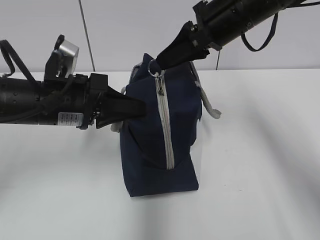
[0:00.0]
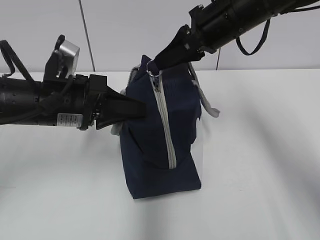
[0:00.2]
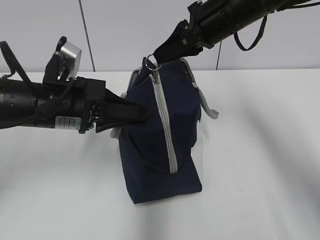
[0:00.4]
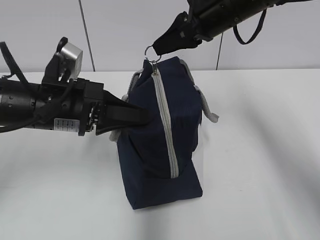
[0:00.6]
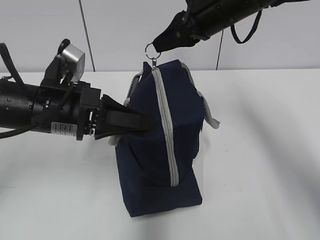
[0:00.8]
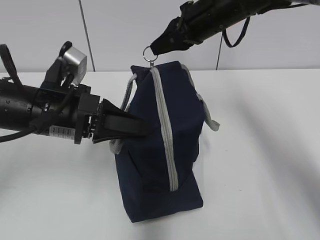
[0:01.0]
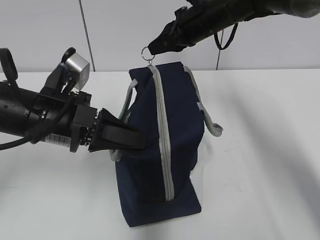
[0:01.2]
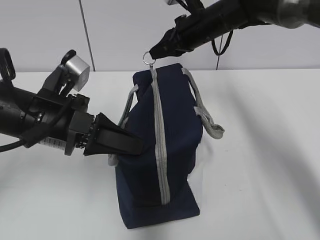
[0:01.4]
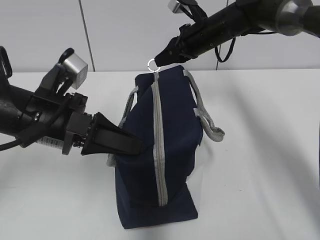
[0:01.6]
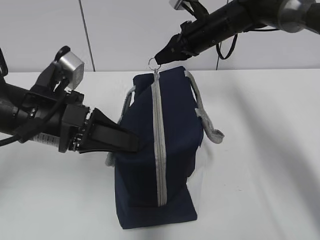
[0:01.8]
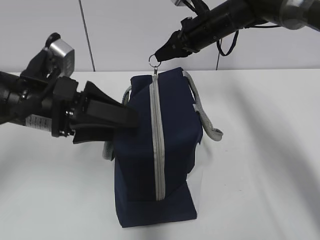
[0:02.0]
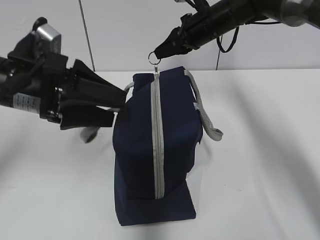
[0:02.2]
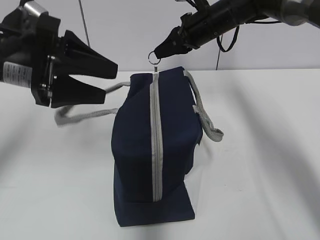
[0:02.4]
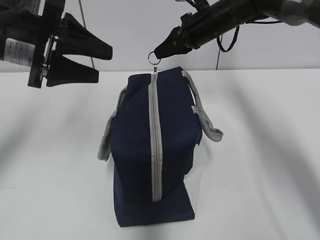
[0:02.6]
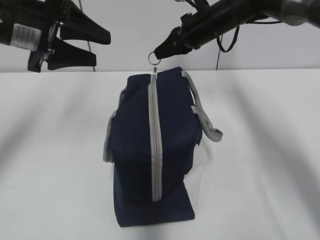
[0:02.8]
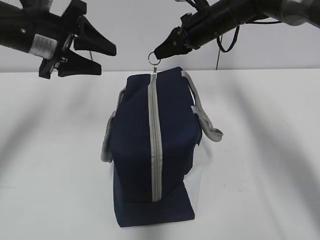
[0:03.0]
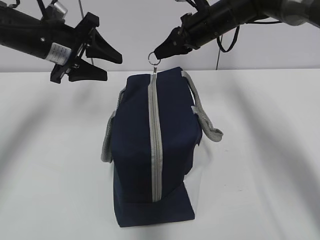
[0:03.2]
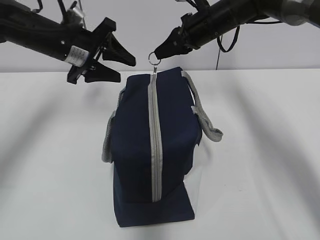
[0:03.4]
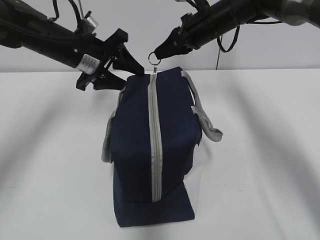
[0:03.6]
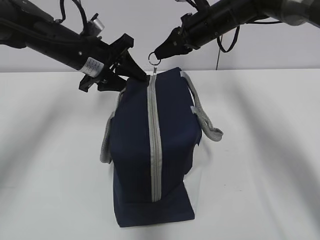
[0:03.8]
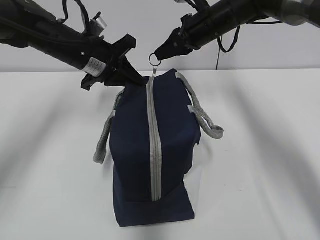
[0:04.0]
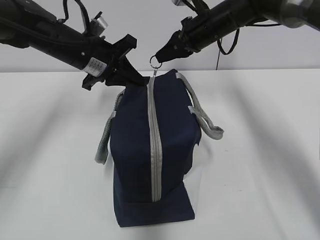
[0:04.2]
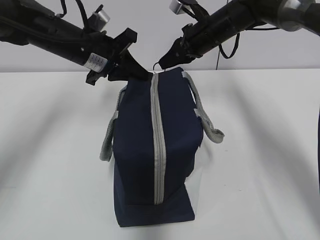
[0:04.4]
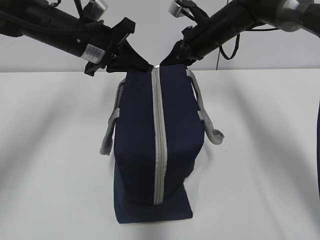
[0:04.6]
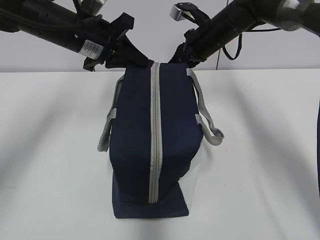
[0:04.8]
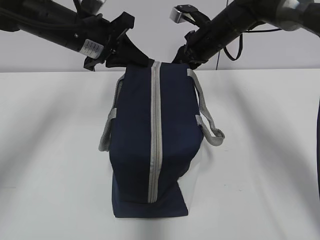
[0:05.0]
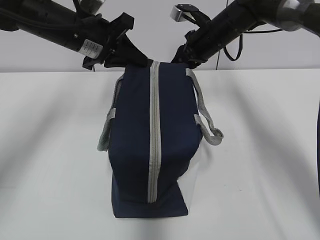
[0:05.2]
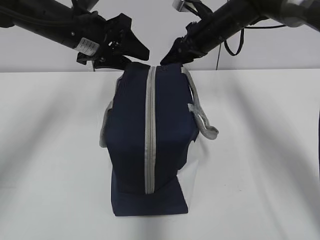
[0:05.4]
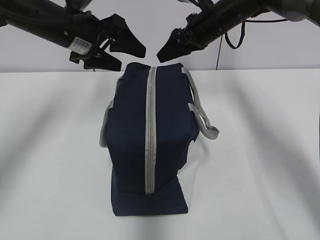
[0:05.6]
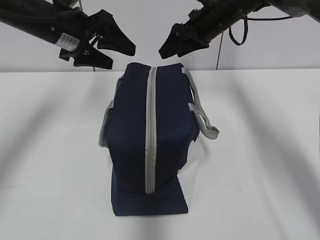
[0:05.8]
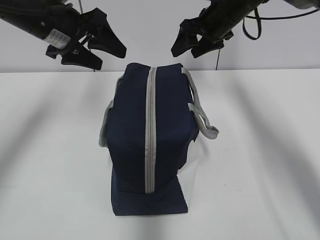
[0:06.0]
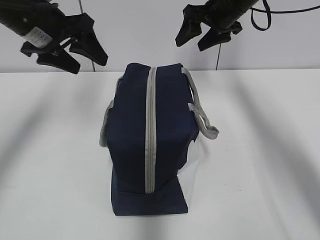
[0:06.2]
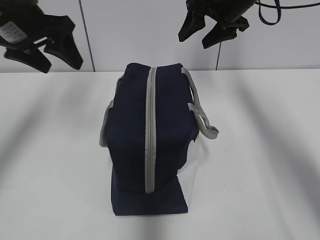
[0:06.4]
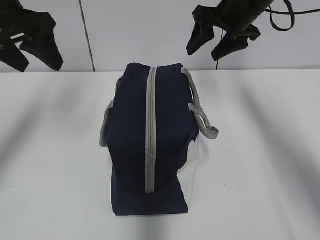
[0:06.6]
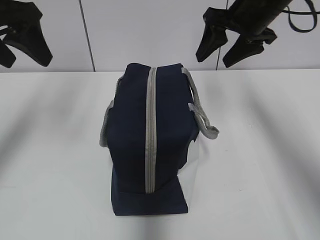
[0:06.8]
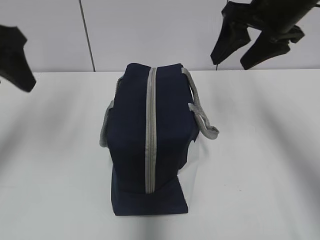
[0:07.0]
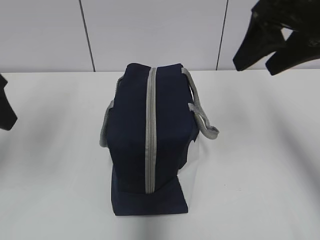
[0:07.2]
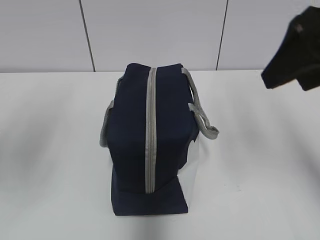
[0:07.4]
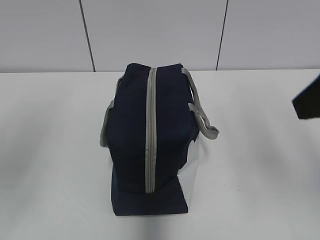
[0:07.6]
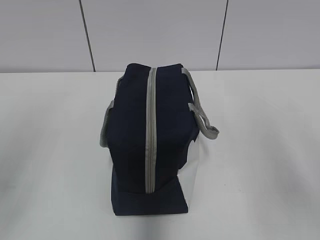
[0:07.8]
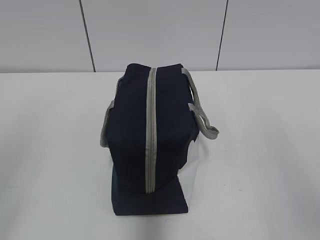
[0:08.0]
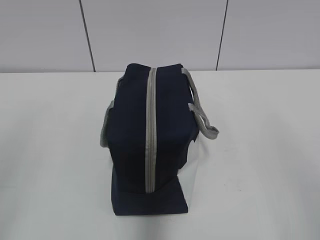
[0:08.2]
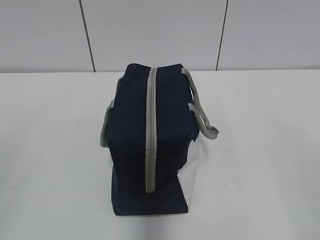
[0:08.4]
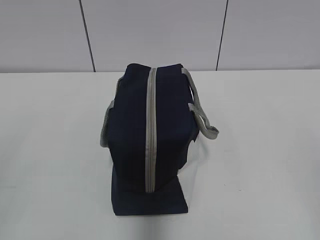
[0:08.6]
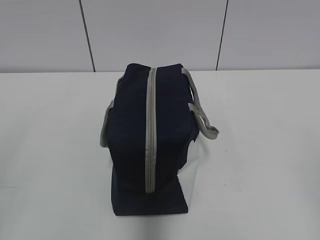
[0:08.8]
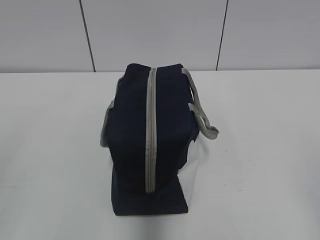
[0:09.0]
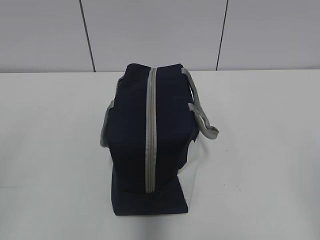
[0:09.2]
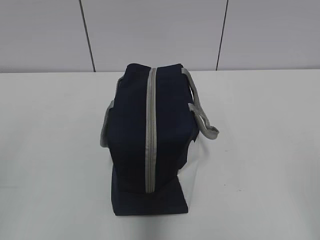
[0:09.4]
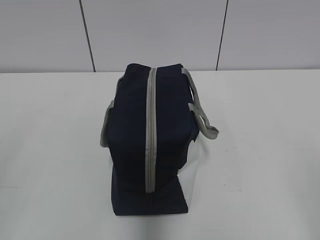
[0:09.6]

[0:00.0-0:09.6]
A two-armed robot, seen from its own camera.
Step, 0:00.0 to 0:05.2: Grab the lunch bag with your left hand.
0:00.0 to 0:01.6: The right gripper shifts roughly 15 cm forward and downward.
0:01.6 to 0:03.2: The left gripper is displaced forward by some 15 cm, and opens up.
0:03.2 to 0:04.8: The left gripper moves to the right, approximately 5 cm, and closes up.
0:04.8 to 0:06.4: The left gripper goes some 10 cm to the left and upward, and opens up; the right gripper is displaced upward by some 10 cm, and opens up.
0:06.4 to 0:08.0: Both grippers move backward, roughly 35 cm.
